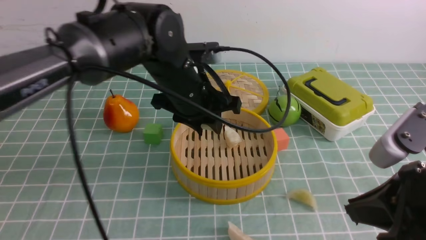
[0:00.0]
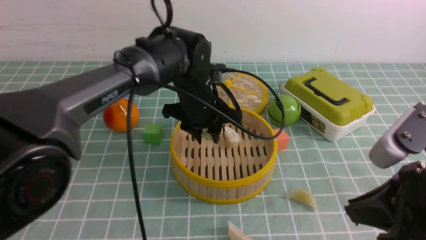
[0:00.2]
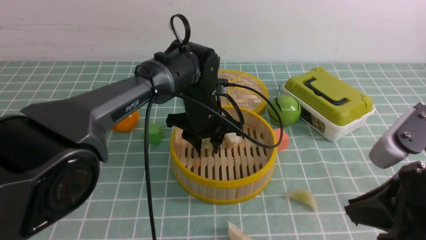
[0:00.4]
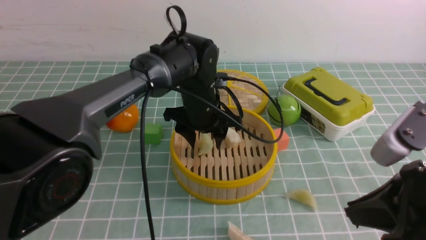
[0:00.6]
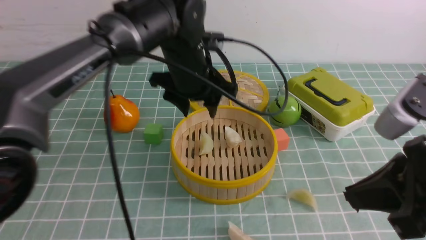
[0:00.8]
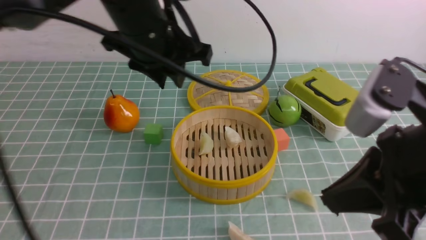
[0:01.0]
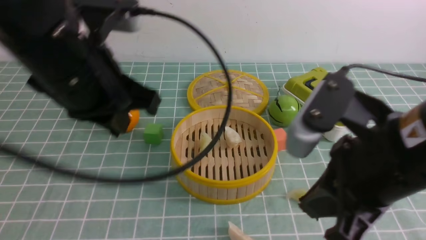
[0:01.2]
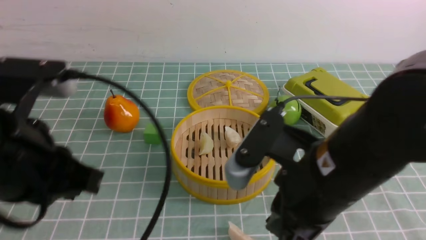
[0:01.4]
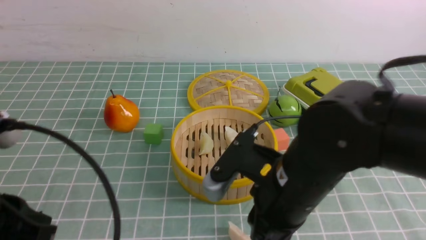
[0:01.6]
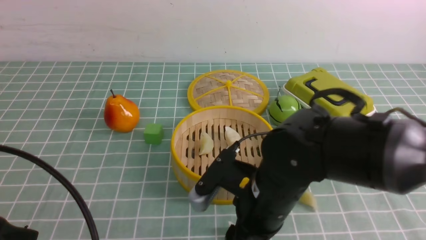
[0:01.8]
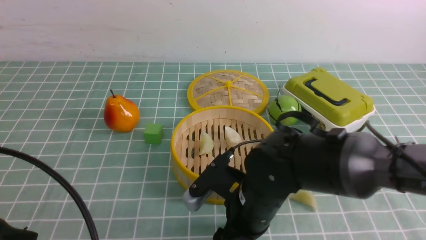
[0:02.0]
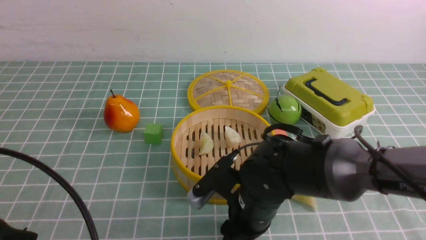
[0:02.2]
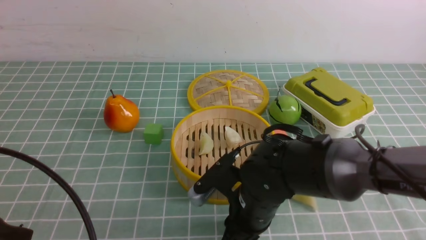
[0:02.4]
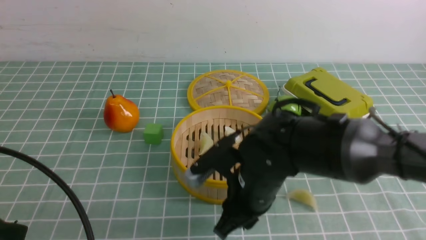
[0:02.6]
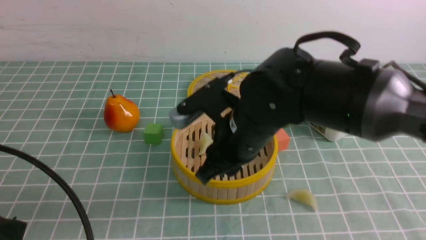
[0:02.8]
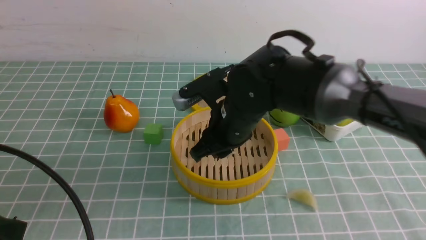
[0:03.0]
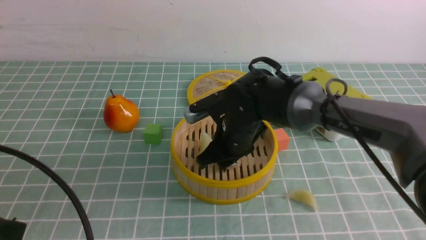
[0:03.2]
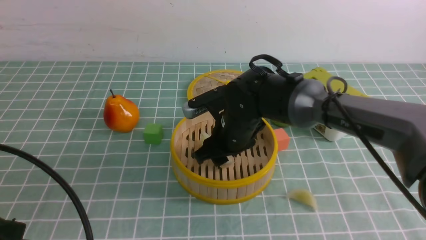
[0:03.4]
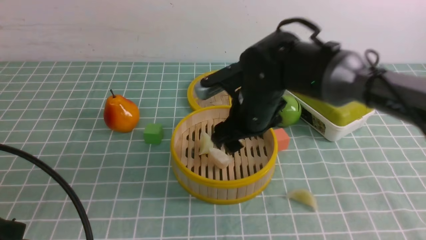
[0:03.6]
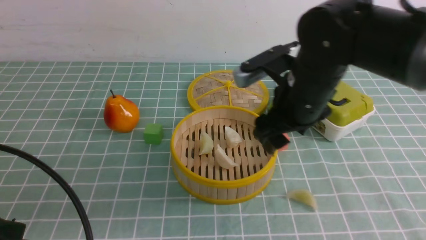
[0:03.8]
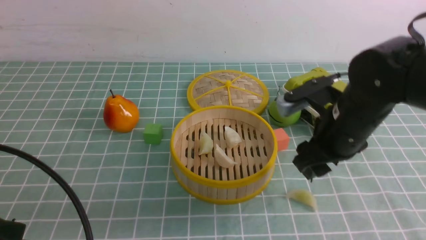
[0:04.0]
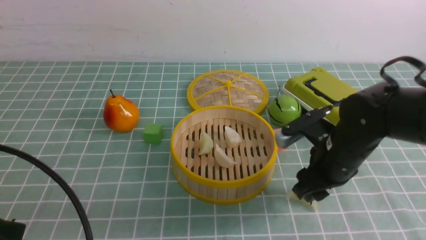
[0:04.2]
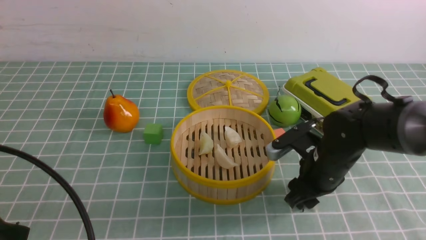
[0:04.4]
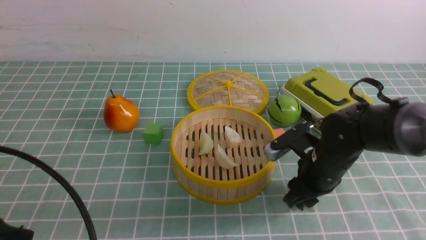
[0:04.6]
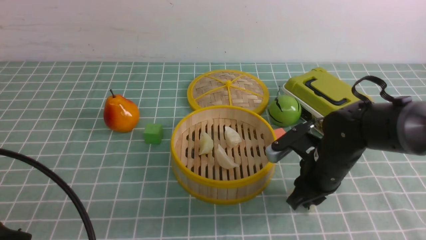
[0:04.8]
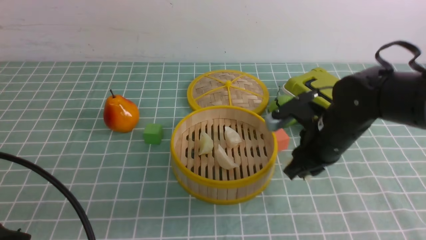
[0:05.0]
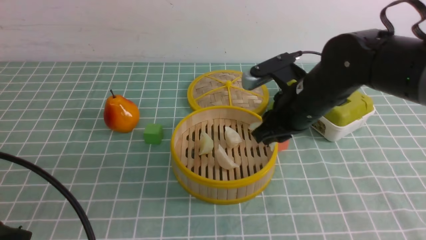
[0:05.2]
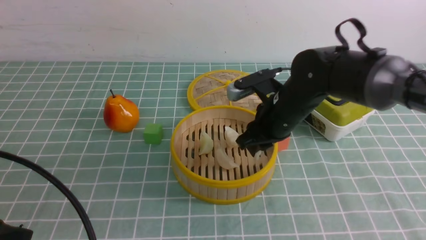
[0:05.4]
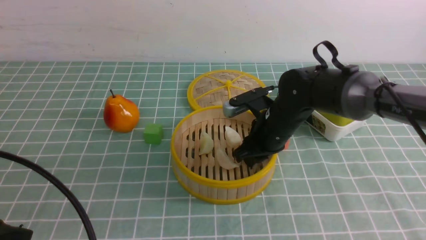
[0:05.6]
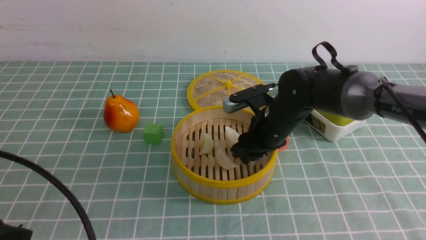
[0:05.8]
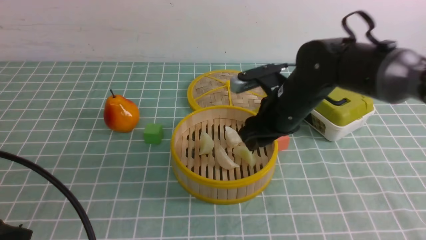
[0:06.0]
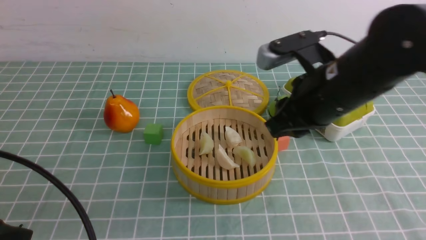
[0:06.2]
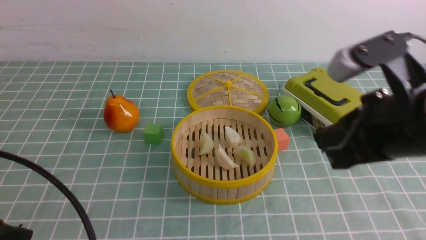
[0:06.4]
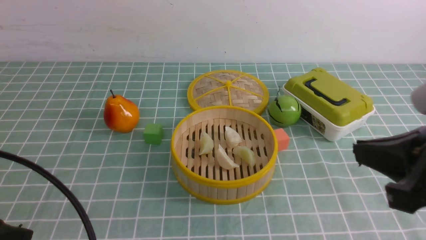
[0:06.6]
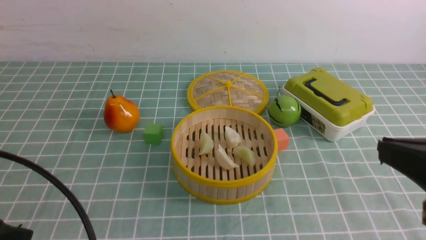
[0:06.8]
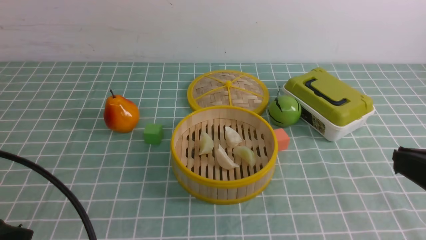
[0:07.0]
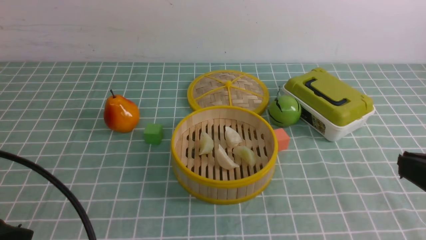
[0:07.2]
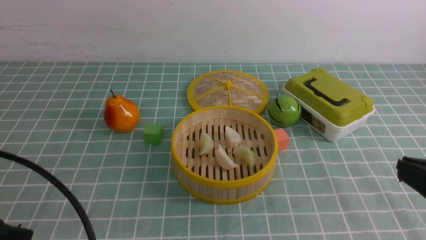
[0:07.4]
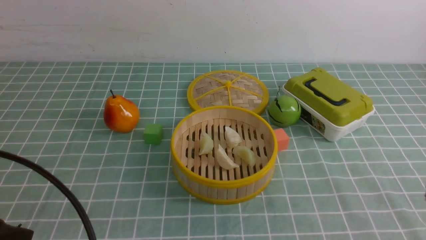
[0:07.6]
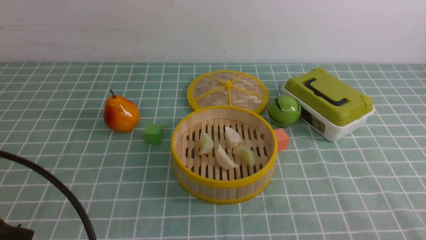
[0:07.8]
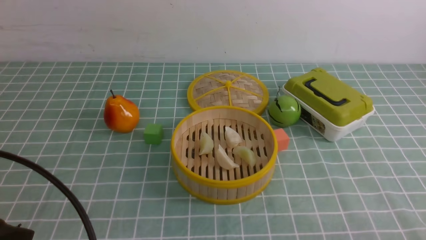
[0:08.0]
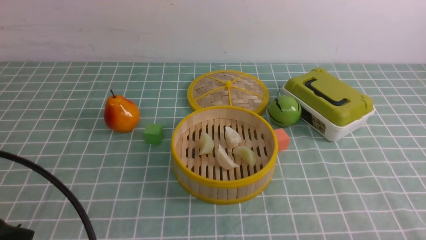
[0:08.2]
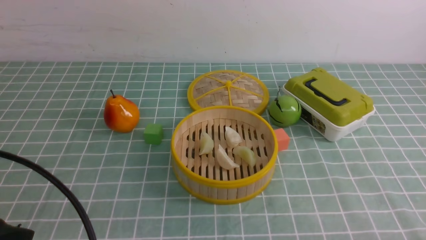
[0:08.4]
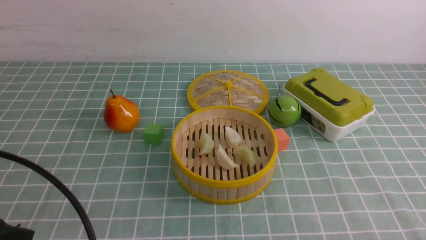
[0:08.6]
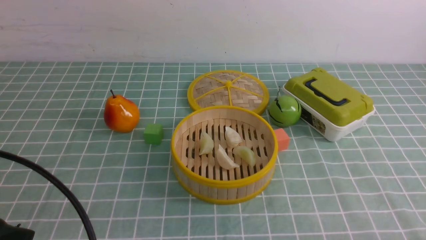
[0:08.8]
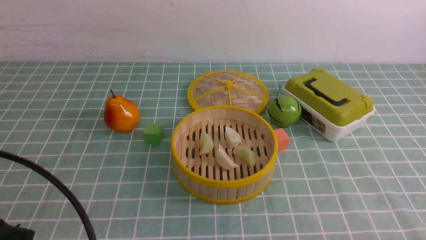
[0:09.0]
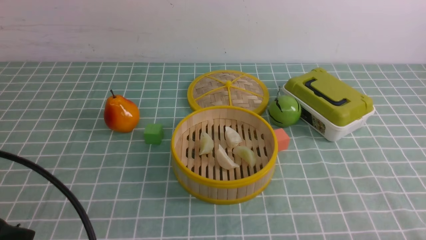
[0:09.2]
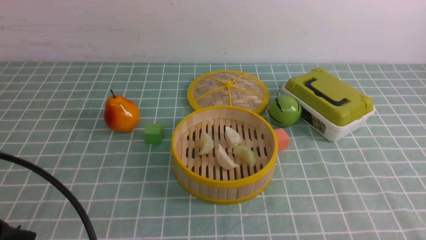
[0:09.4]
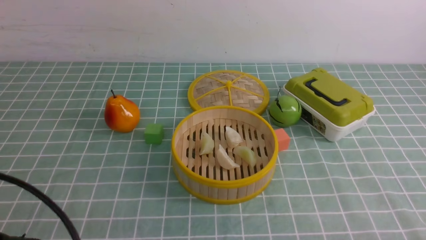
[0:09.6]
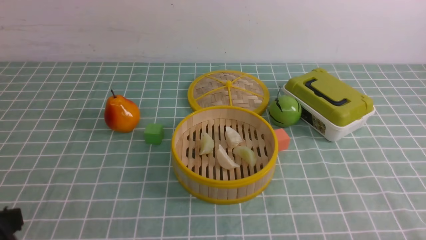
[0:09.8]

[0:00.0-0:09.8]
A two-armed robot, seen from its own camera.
Task of the whole recording: put the dumplings into the steamer on the table with the blue tablecloth.
Step, 0:00.0 to 0:00.6: use the left arm to put the dumpling into the steamer.
Step, 0:00.8 to 0:02.6: use the right arm to grab a dumpling.
Step, 0:03.0 to 0:03.6: use the right arm to put the dumpling into the steamer.
Step, 0:03.8 to 0:04.8: use the right arm to grab a dumpling.
Step, 0:05.0 to 0:06.0: use the right arm to put the dumpling into the steamer.
0:00.0 to 0:01.4: The right gripper heads to the left, covering roughly 10 cm. Meanwhile the left gripper is displaced backward, to the left and upward by roughly 25 cm, and closes.
0:01.4 to 0:02.8: The left gripper moves backward, approximately 5 cm. Meanwhile the right gripper is displaced forward, to the left and downward by roughly 15 cm, and opens, then closes once more.
0:02.8 to 0:04.2: The right gripper moves to the right, some 15 cm, and opens its fingers.
0:04.2 to 0:05.6: The right gripper moves up and down over about 10 cm, changing direction 2 times, and closes up.
0:05.6 to 0:07.0: The right gripper travels backward, upward and to the right by about 35 cm, and closes its fingers.
0:07.0 to 0:08.4: The right gripper moves downward, about 15 cm.
0:08.4 to 0:09.8: The left gripper ends up about 5 cm from where it was.

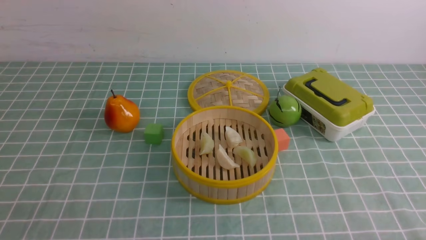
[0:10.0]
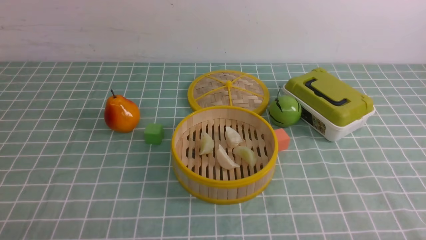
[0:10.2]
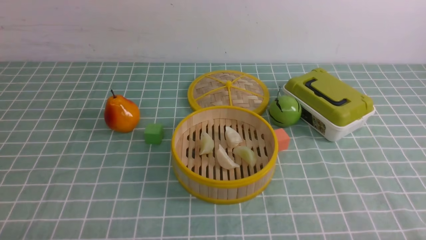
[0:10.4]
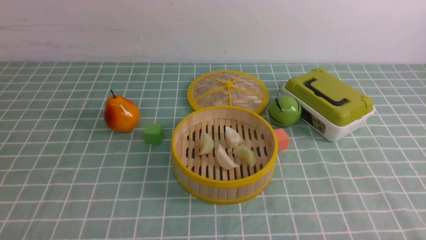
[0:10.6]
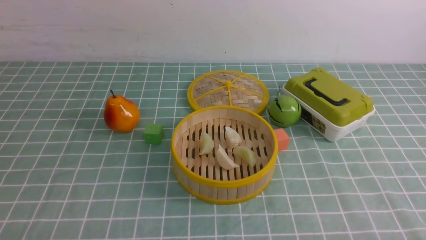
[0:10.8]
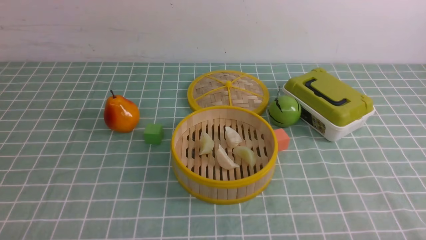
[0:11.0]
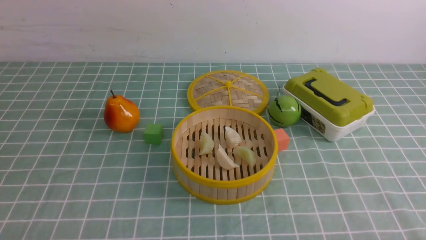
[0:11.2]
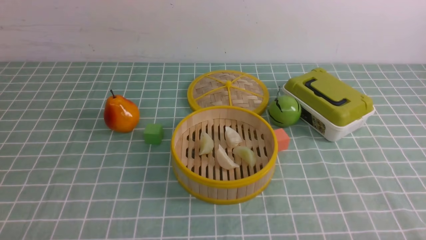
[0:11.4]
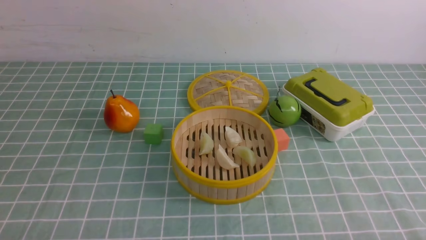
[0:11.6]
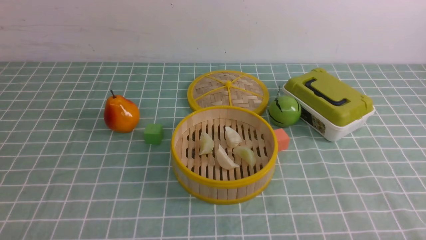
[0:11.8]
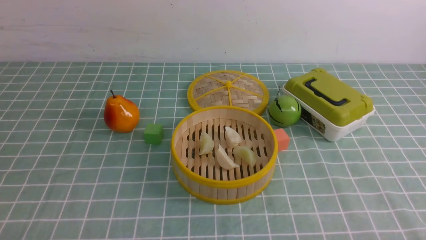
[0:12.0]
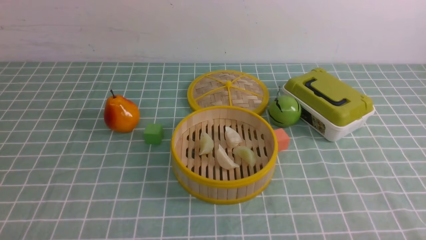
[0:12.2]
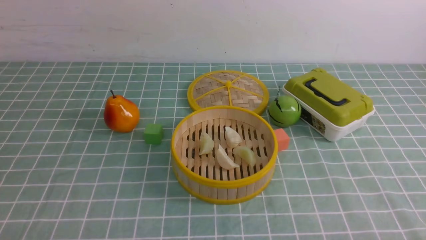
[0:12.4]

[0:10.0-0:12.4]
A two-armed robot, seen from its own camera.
Task of the whole recording: put the dumplings into the steamer on the table with the blue tablecloth.
0:11.2 to 0:12.4: Neither gripper changes place.
